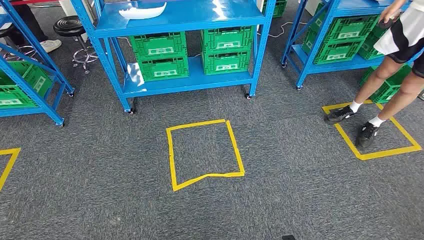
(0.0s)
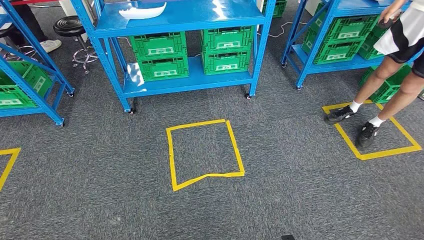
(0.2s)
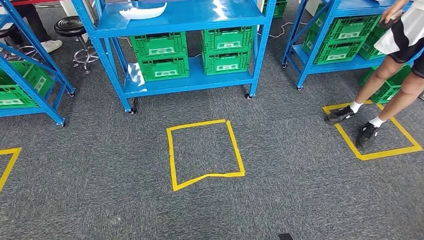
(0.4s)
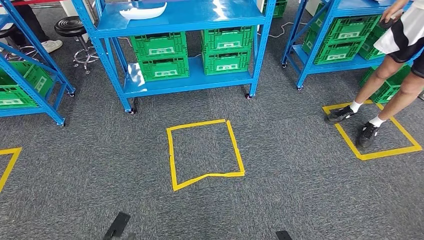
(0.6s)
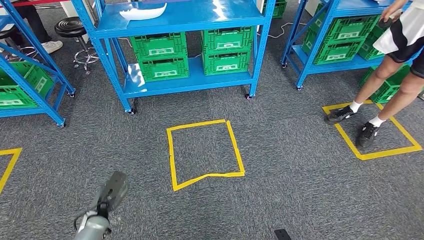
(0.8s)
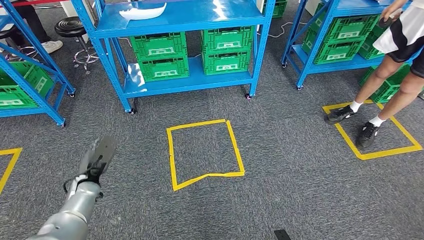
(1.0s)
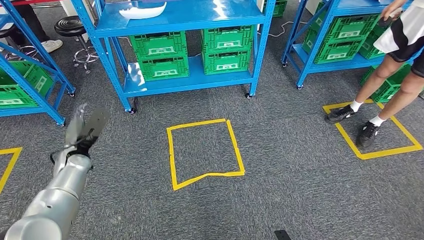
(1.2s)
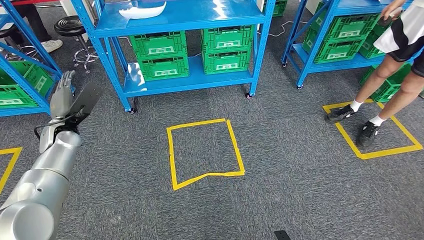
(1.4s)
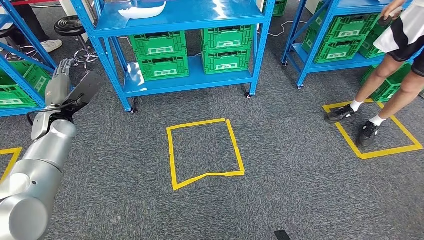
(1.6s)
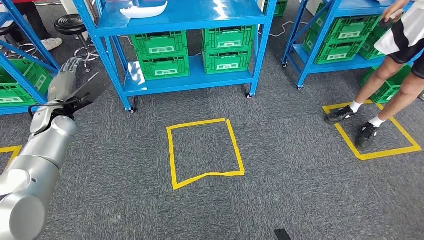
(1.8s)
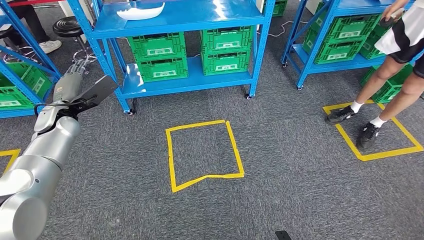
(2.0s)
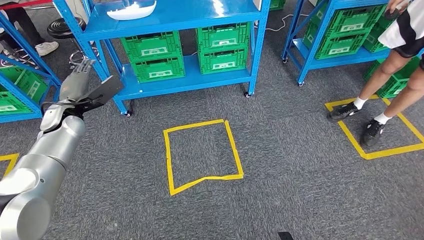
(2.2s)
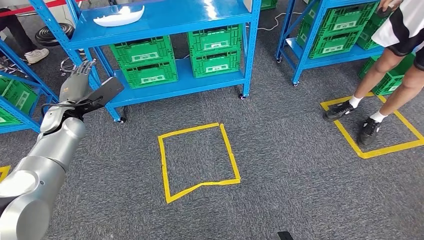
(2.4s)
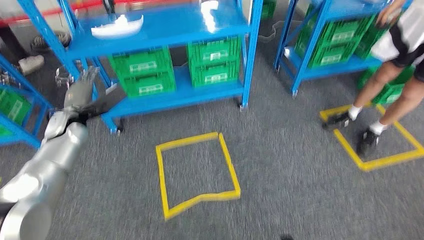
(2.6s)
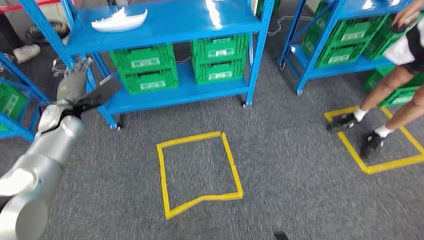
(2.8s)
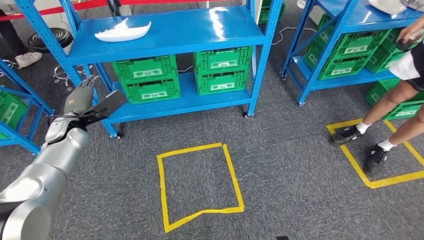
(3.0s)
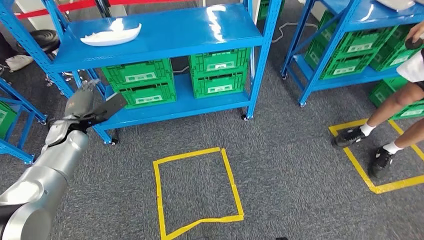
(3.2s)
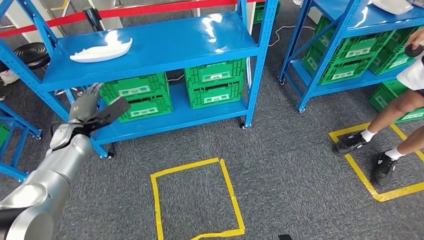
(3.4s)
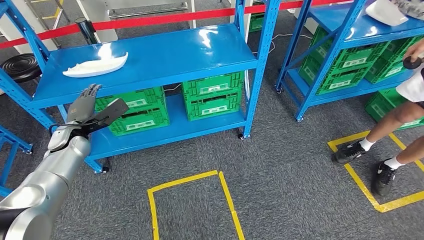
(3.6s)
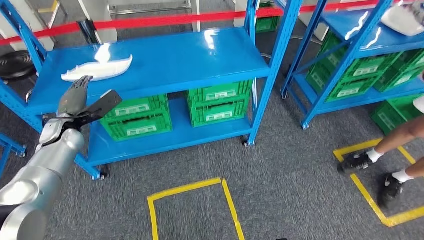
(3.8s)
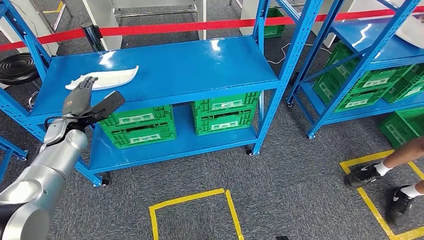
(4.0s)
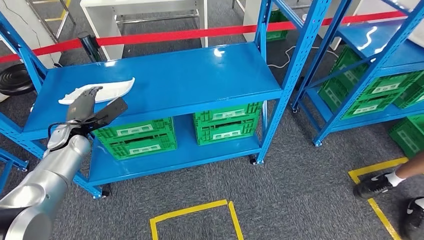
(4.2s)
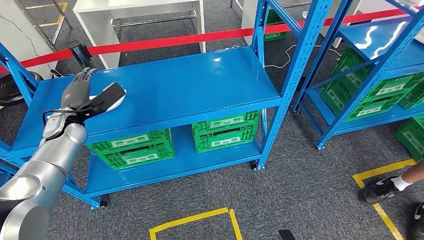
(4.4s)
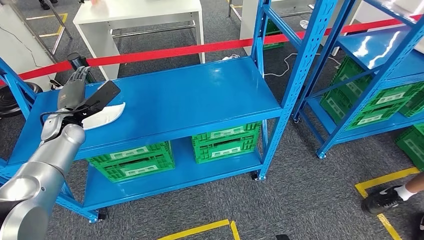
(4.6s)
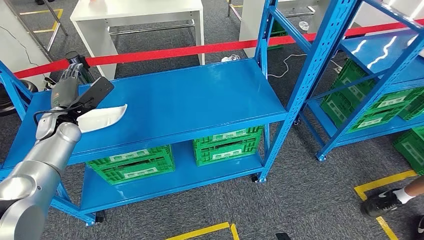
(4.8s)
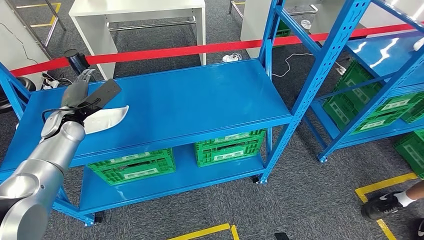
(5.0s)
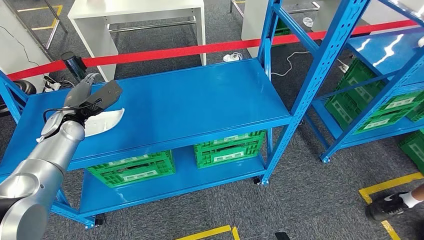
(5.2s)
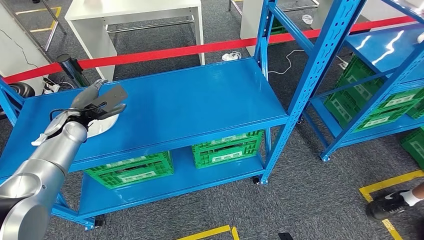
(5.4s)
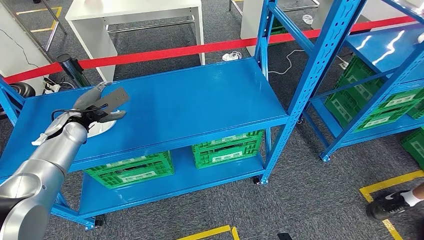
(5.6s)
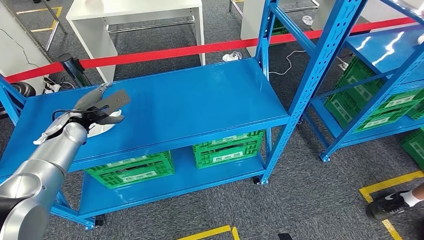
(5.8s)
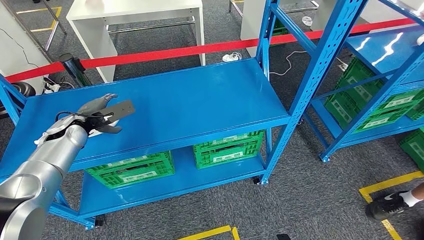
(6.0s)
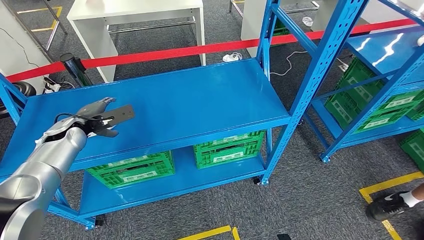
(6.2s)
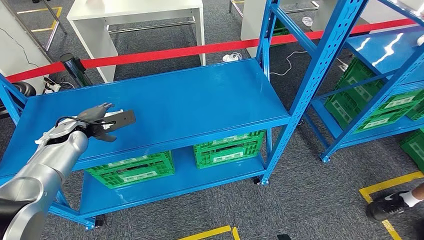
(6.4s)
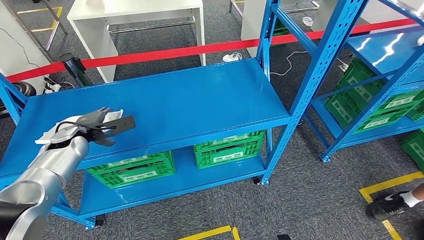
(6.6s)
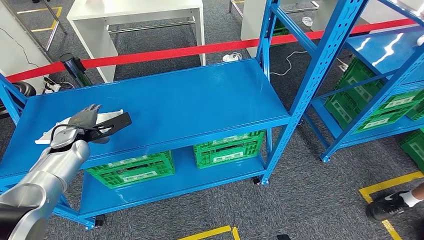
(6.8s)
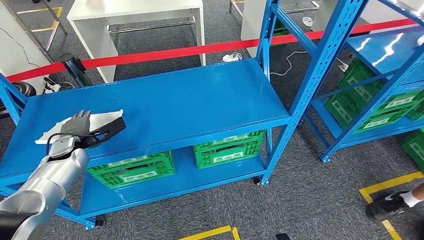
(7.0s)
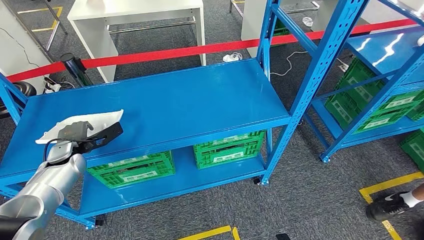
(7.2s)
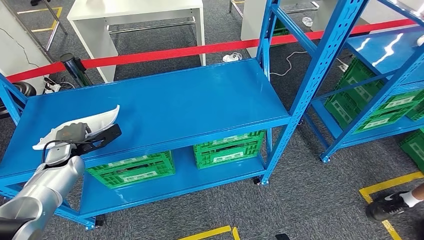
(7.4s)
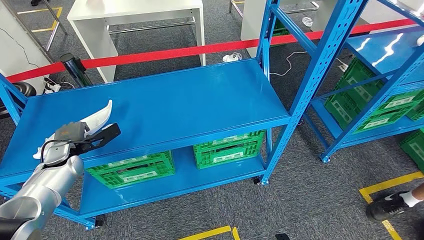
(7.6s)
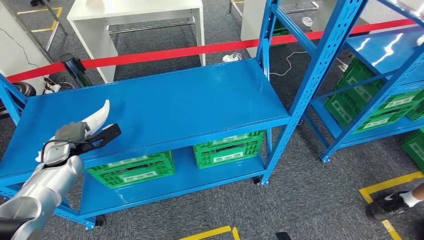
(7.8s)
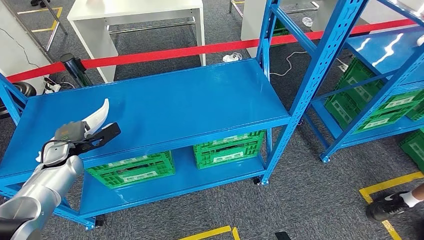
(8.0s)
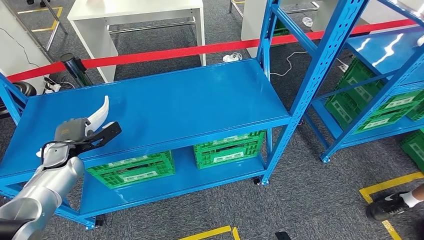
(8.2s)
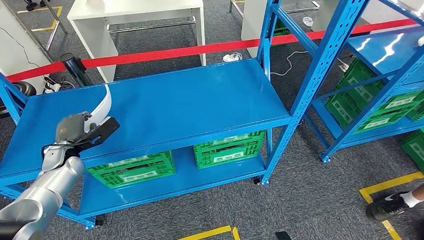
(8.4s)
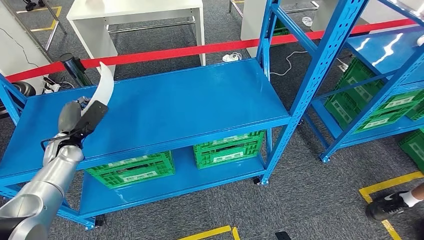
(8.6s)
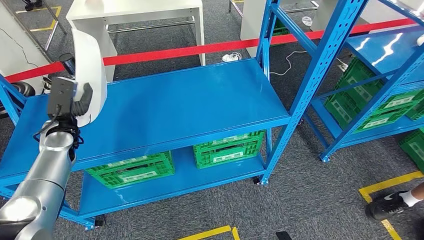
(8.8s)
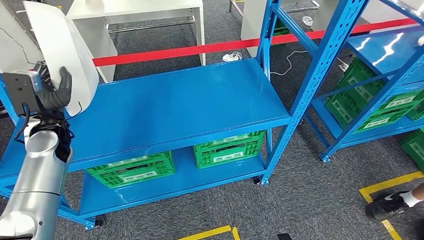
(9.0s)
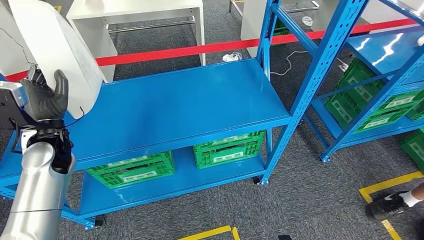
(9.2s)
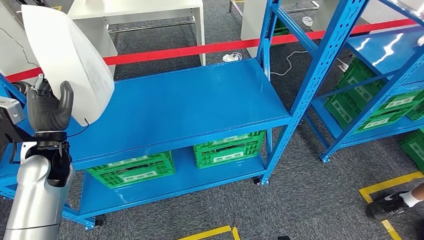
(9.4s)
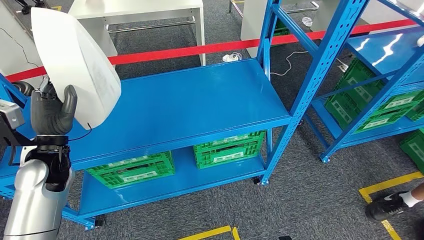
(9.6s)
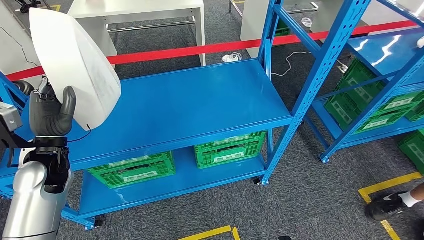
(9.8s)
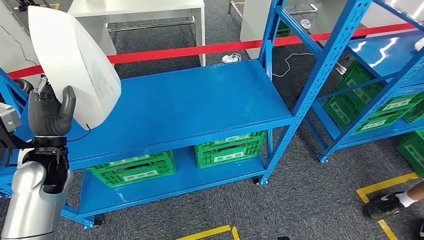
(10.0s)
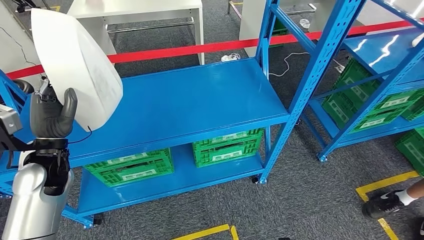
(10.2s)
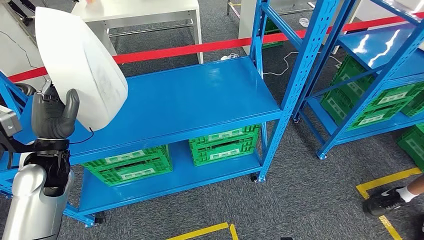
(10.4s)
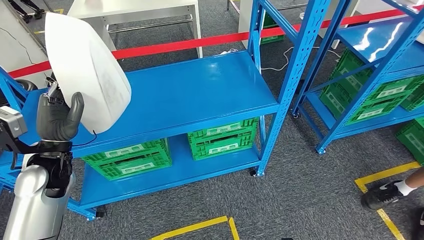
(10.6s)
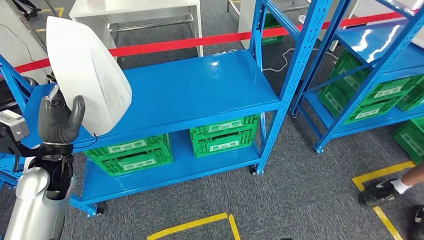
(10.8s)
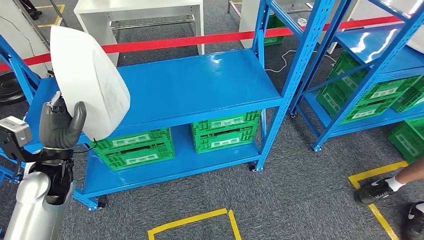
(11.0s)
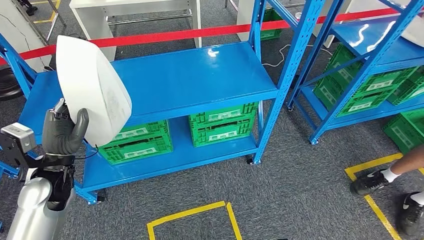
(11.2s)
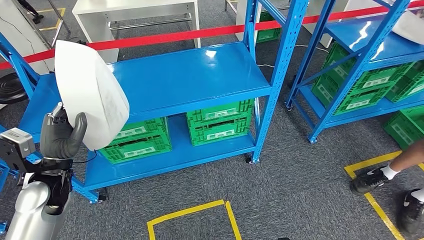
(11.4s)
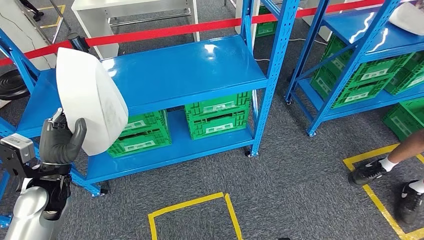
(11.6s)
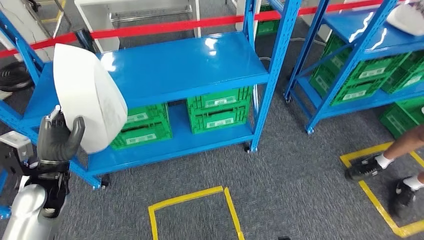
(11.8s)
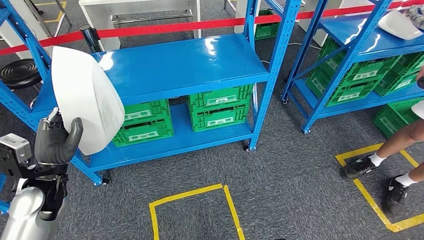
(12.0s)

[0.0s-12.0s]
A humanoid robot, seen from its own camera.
Step, 0.0s to 9.2s: Pick up the small component from the shelf.
6.0s to 7.6s: The left hand moves downward, roughly 10 cm.
7.6s to 9.0s: The left hand moves upward, about 10 cm.

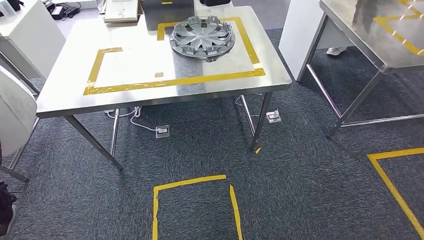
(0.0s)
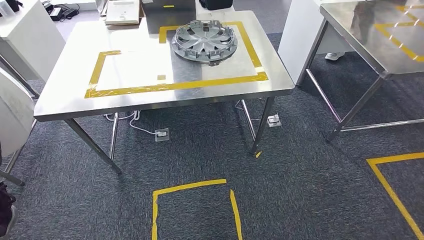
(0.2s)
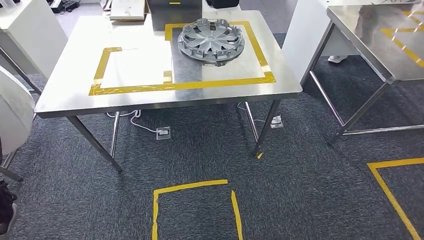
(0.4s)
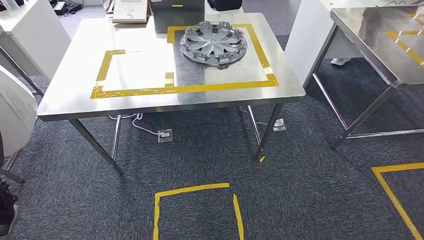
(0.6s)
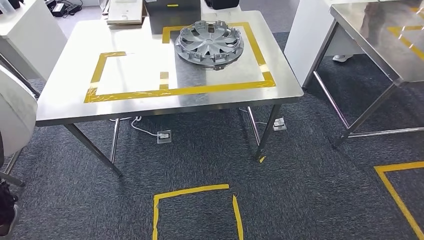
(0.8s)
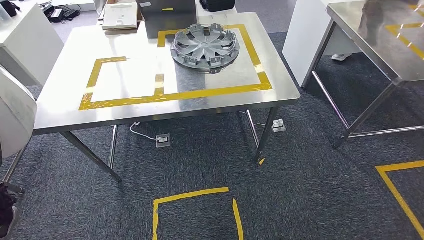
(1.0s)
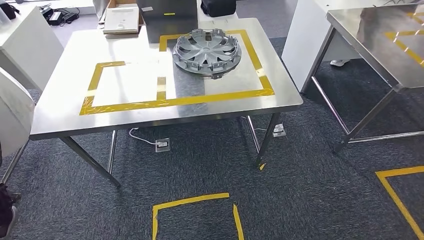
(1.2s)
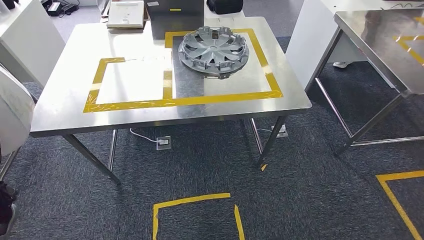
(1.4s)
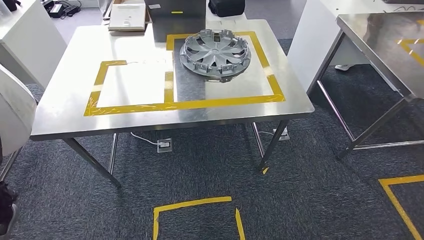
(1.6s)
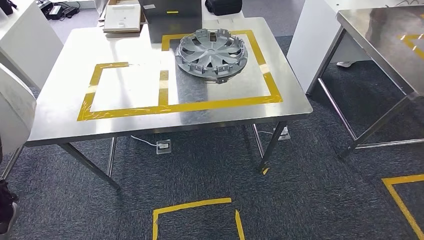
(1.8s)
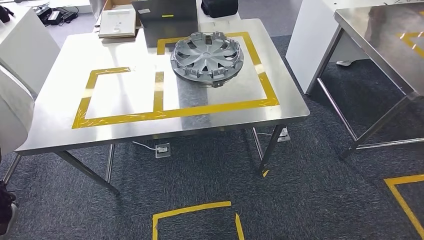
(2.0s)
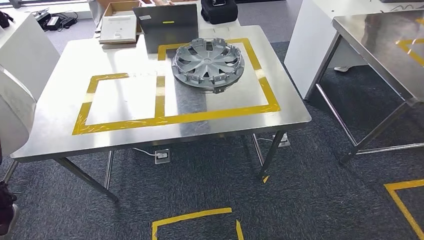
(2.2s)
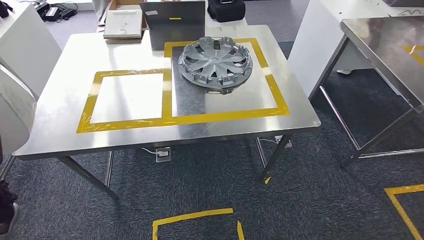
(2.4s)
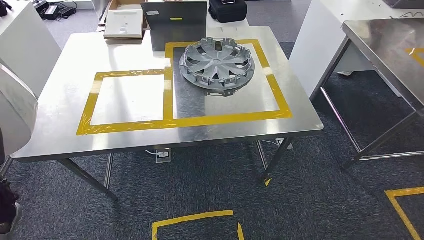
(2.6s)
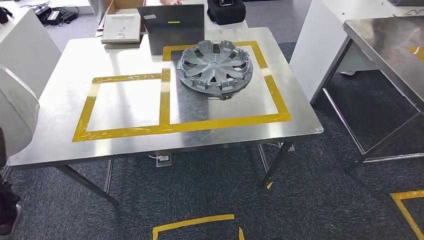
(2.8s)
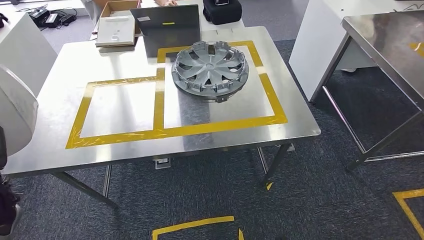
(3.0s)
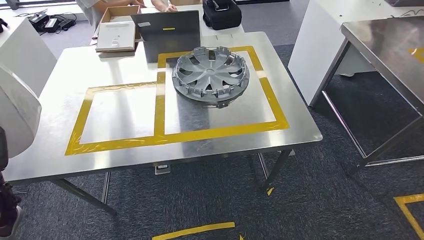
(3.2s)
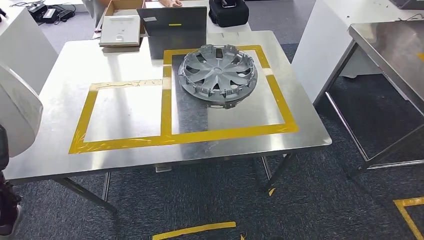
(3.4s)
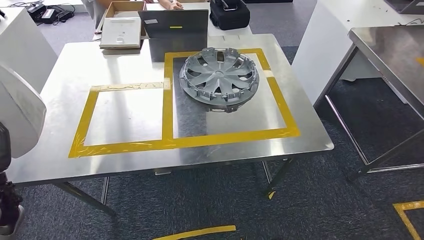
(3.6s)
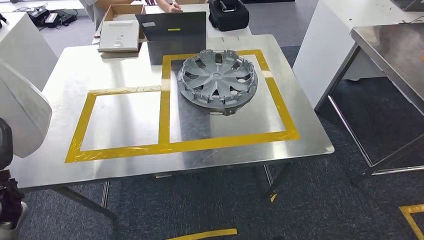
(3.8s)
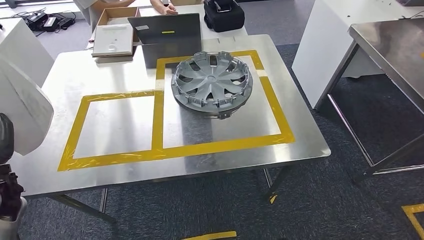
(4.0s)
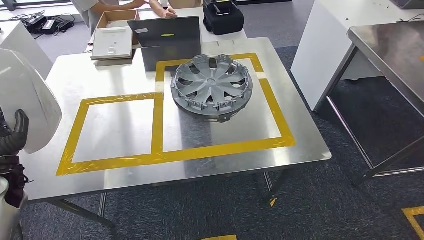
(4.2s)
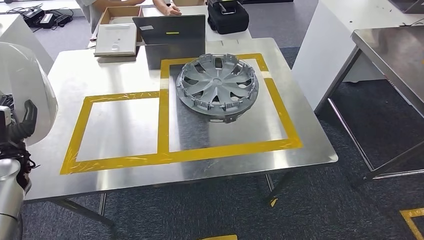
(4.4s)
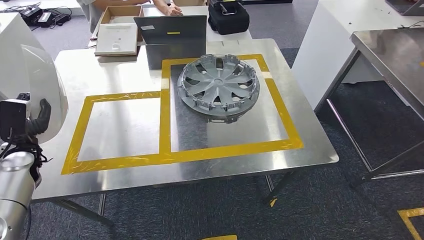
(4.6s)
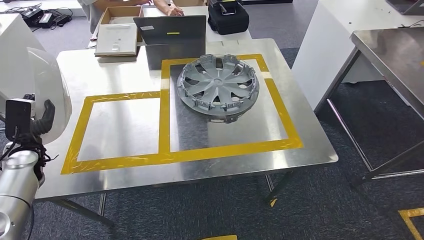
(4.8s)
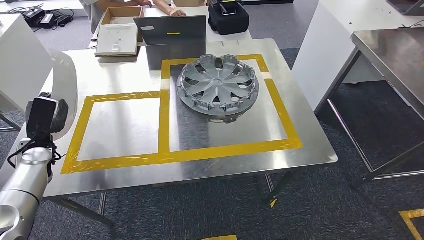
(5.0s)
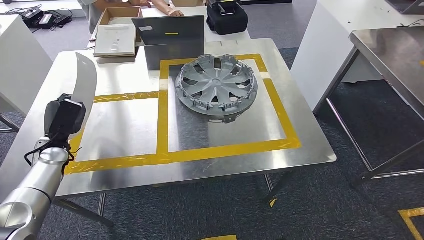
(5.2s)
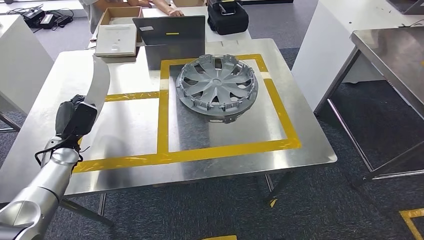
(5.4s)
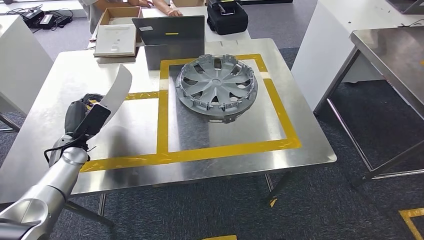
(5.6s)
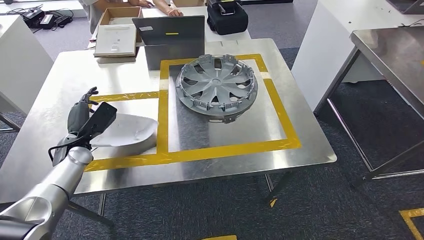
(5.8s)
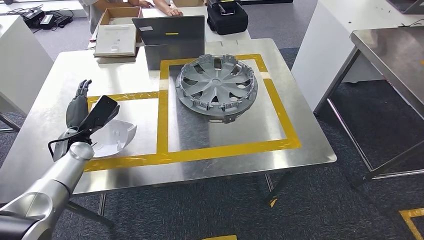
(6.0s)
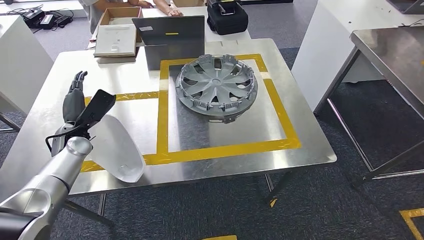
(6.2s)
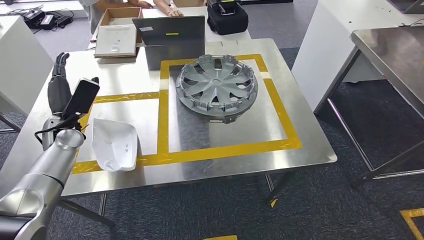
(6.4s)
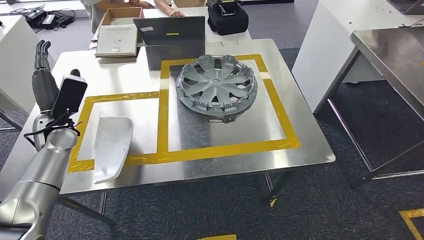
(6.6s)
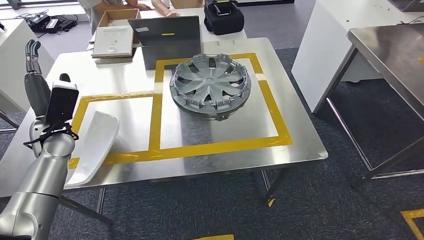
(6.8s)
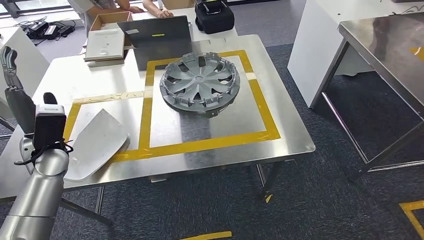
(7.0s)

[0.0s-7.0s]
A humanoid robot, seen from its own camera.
Step, 0.0s to 4.6s: Bring the small component to the front of the workbench.
